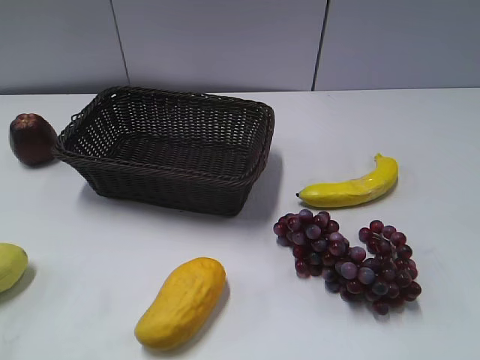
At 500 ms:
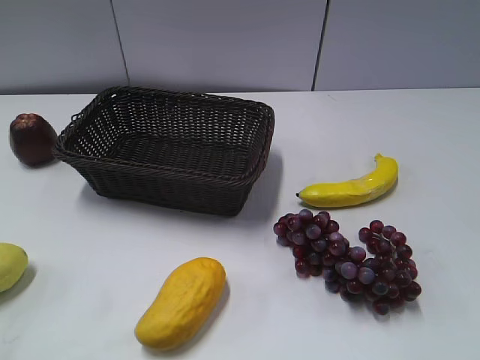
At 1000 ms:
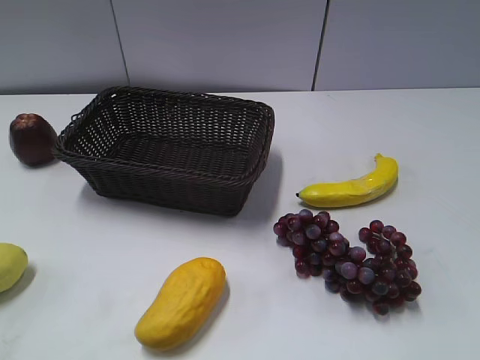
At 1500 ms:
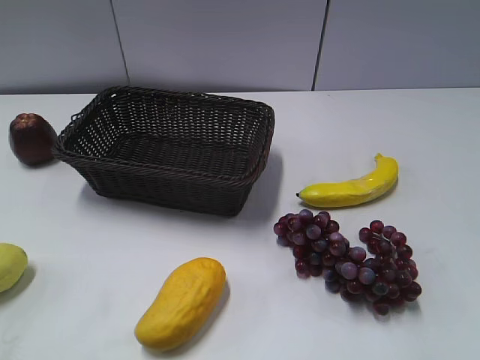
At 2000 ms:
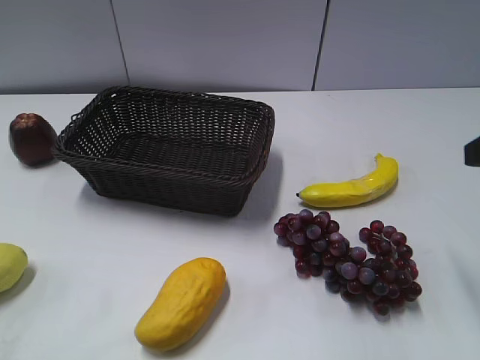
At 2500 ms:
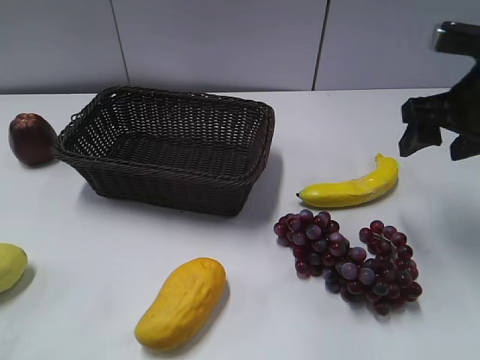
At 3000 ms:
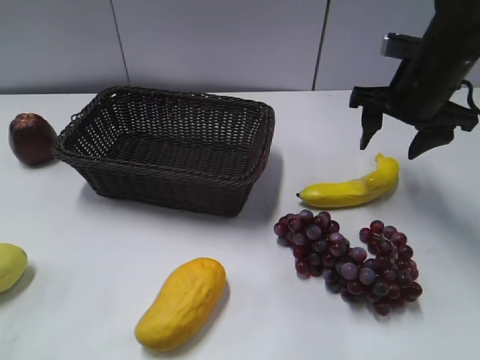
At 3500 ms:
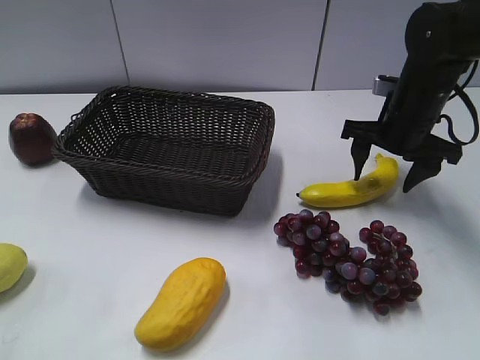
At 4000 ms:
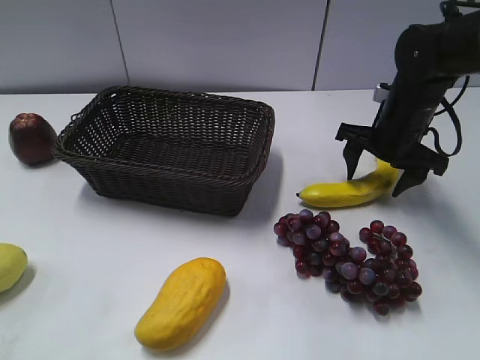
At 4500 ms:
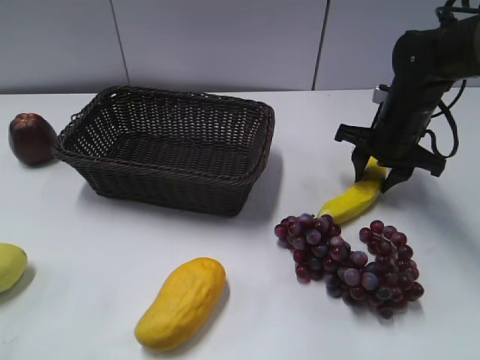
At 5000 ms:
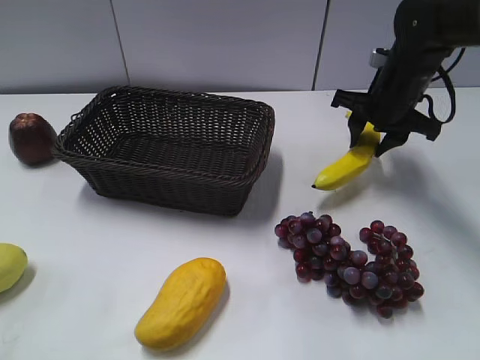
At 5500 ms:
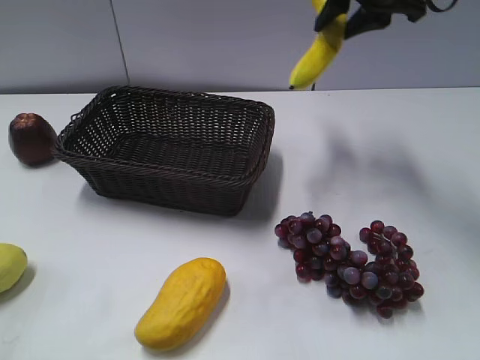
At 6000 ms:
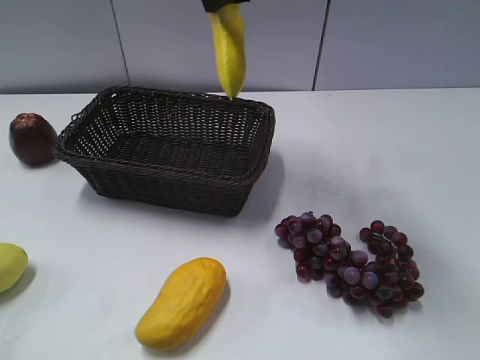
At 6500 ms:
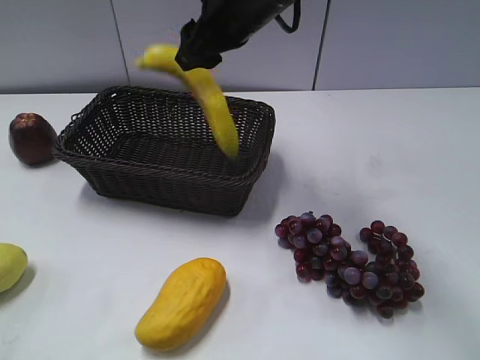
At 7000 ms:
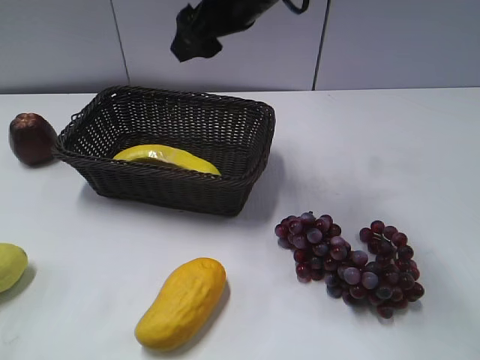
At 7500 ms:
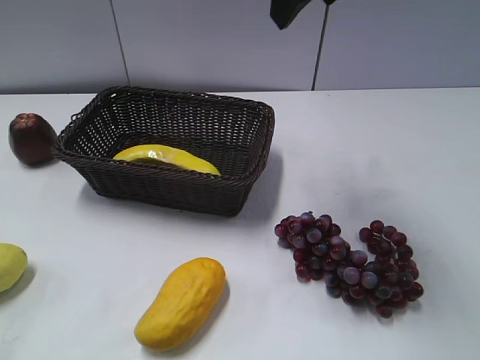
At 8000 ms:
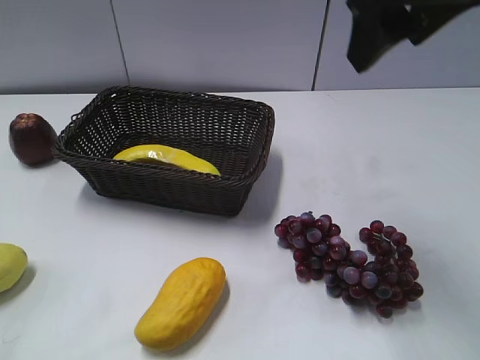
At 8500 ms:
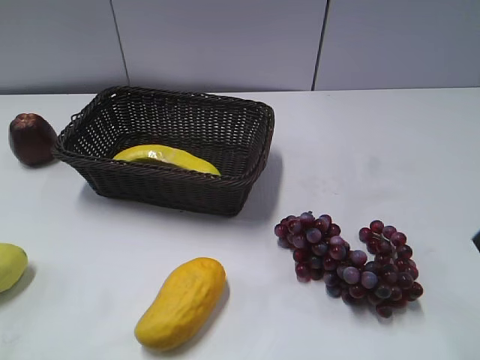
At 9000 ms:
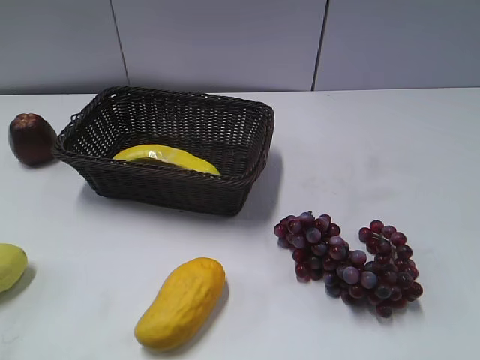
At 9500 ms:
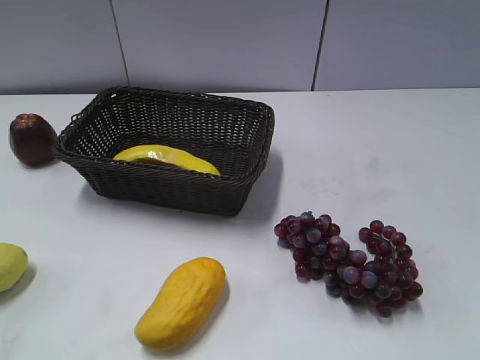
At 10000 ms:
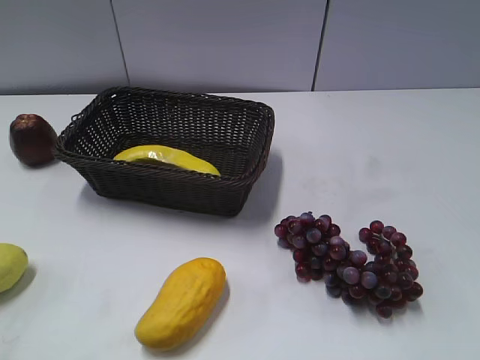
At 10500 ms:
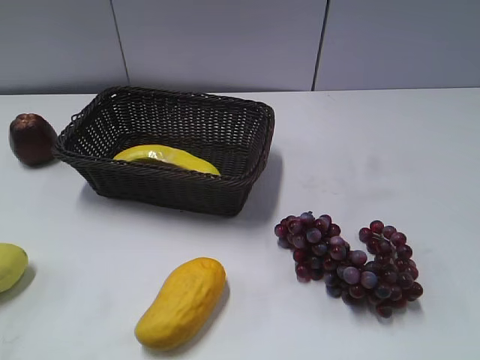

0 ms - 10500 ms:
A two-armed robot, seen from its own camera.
Step, 2000 ms - 4000 ms: Grasp the banana with right gripper.
Step, 5000 ms - 7000 ms: Place the banana in the basket with right gripper.
2000 ms - 4000 ms: The right gripper is displaced forward, downward and to the left by about 25 cm.
4000 ms - 6500 ms: The right gripper moves to the left and upward, about 25 cm, and closes up.
6500 ms - 8500 ms: The right gripper moves backward and to the right, some 35 cm.
